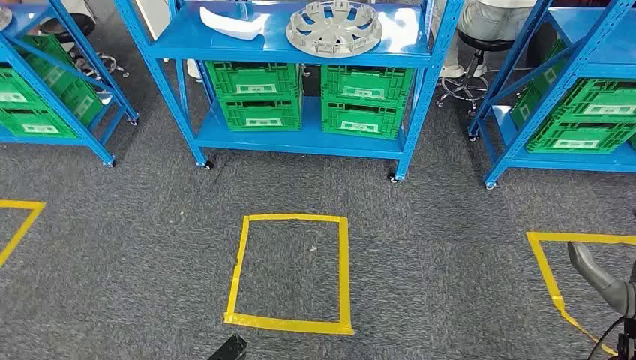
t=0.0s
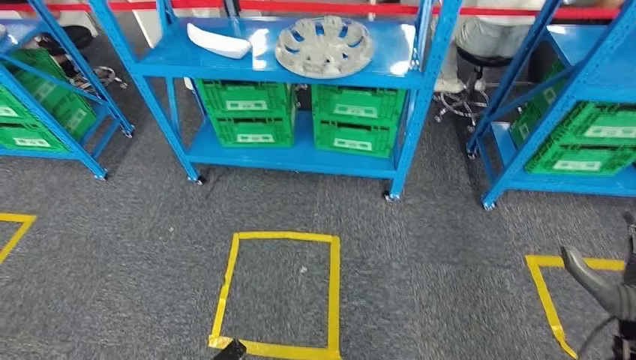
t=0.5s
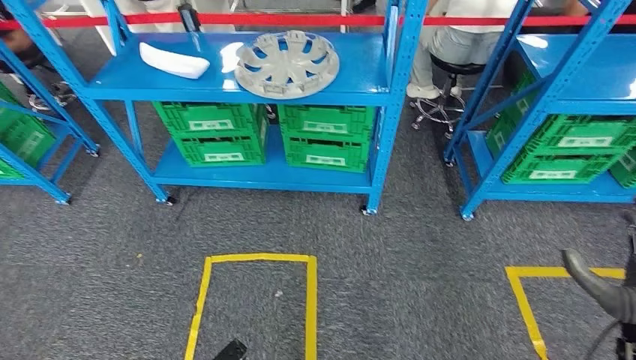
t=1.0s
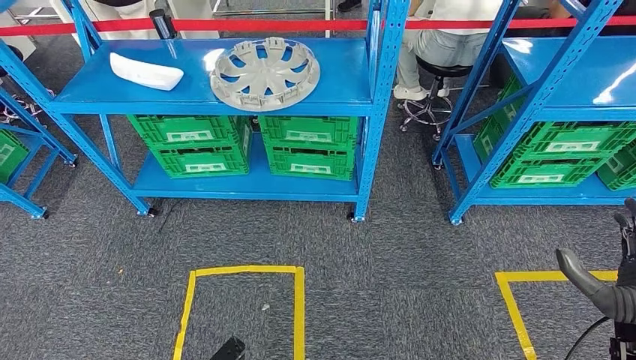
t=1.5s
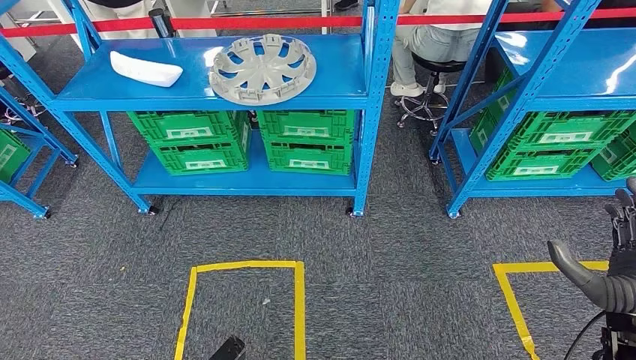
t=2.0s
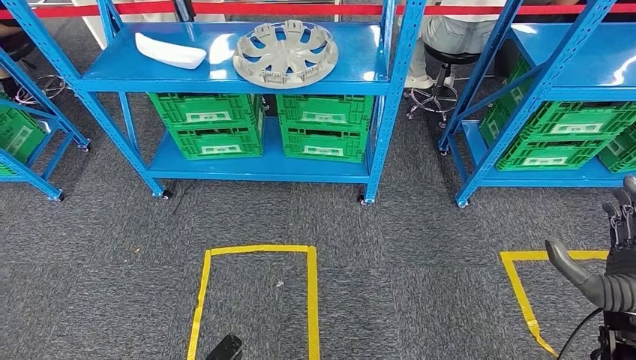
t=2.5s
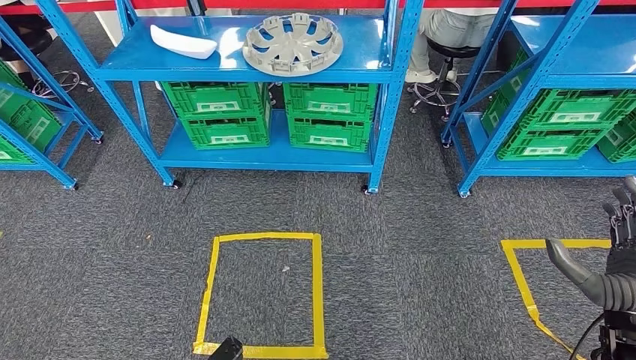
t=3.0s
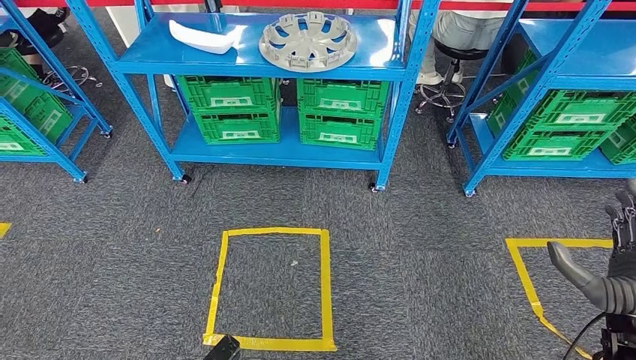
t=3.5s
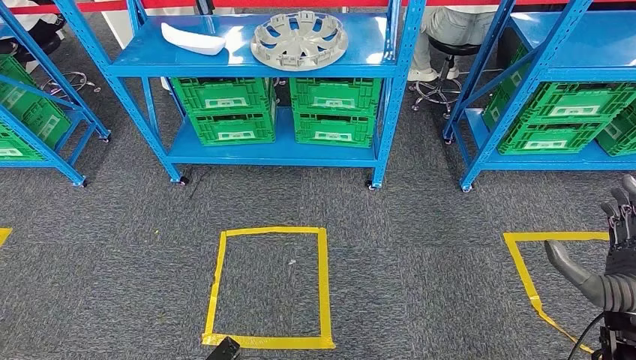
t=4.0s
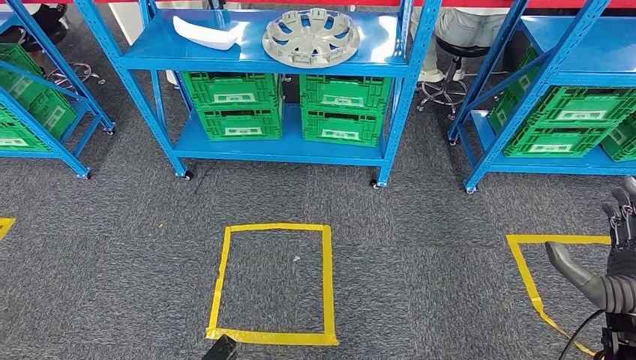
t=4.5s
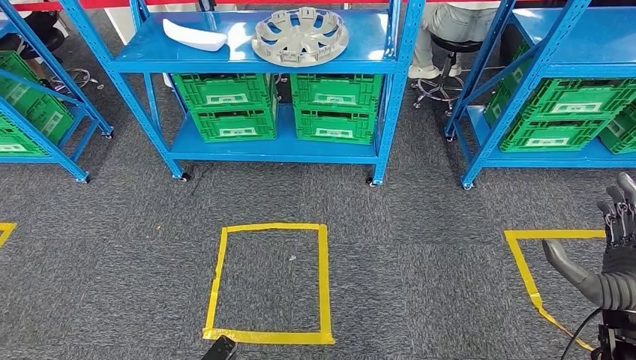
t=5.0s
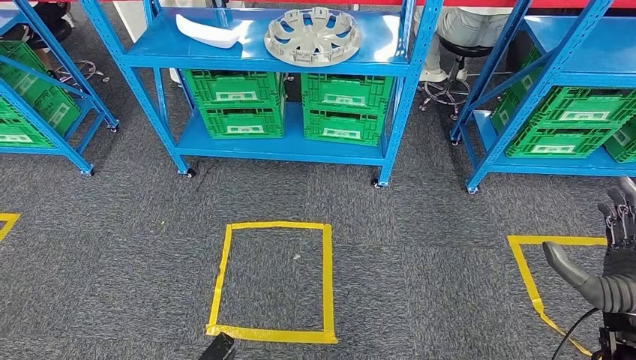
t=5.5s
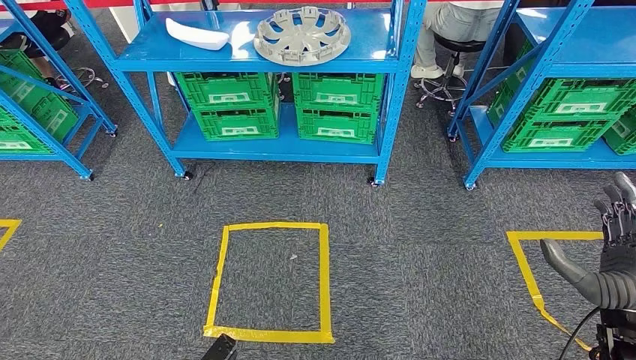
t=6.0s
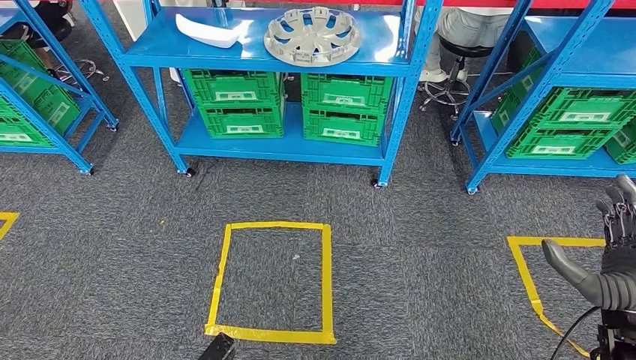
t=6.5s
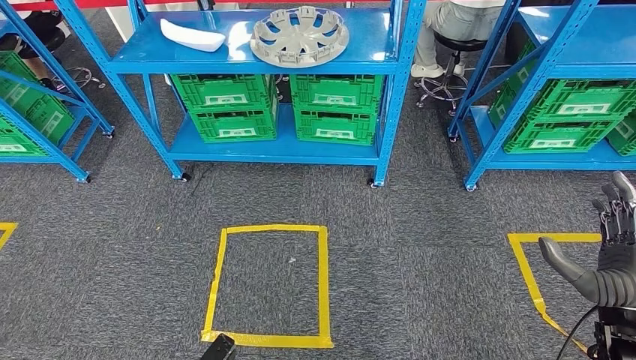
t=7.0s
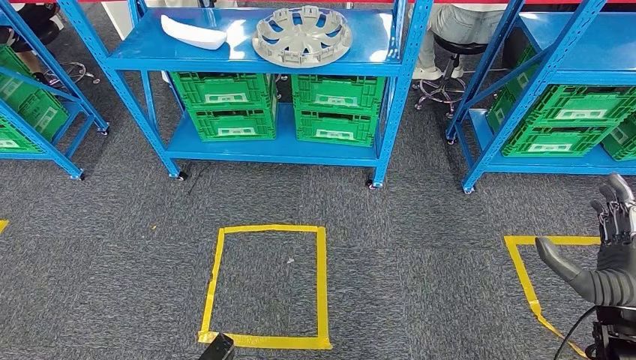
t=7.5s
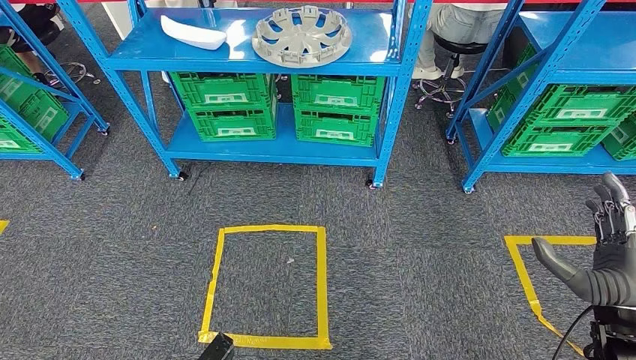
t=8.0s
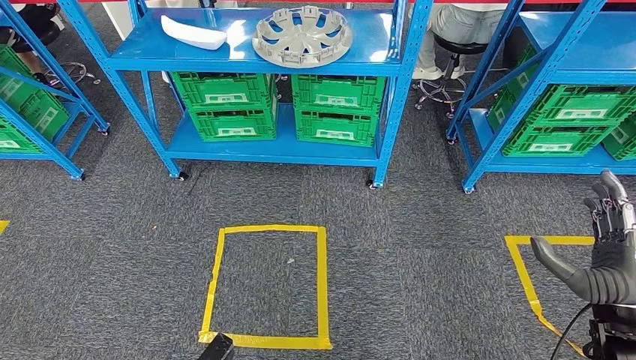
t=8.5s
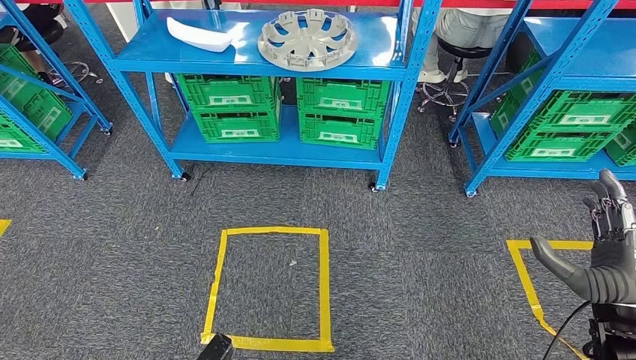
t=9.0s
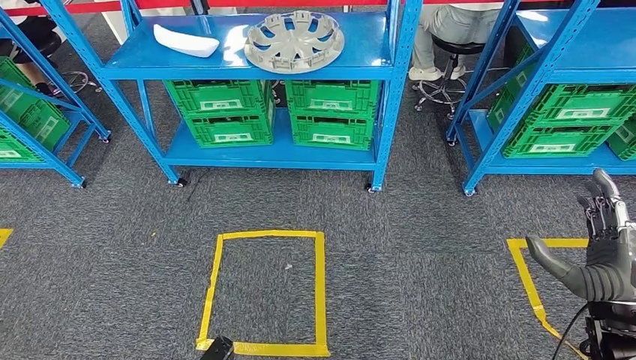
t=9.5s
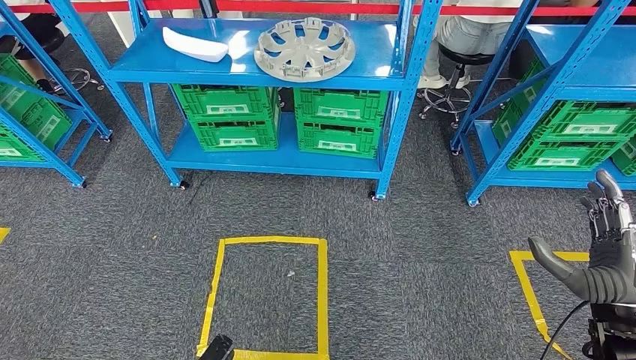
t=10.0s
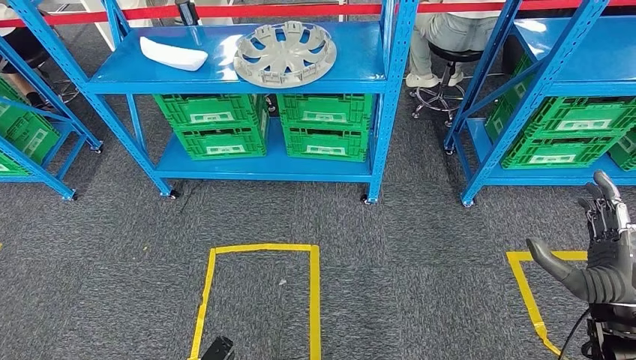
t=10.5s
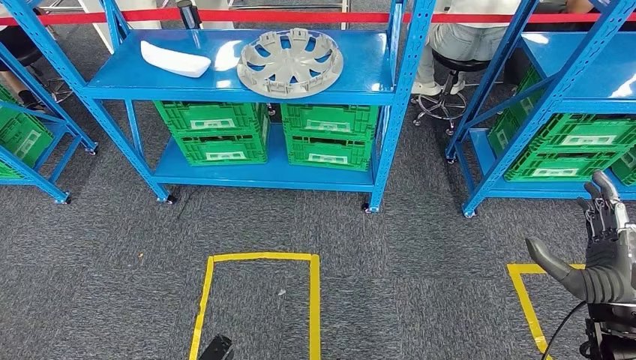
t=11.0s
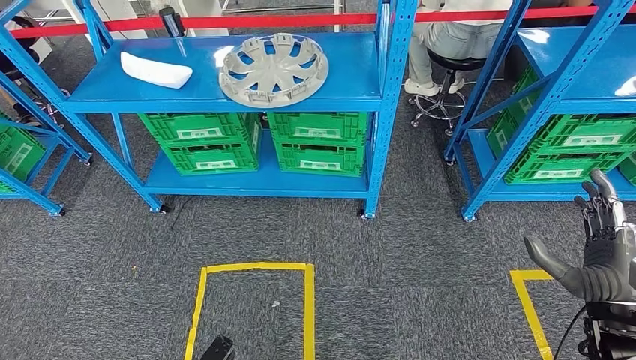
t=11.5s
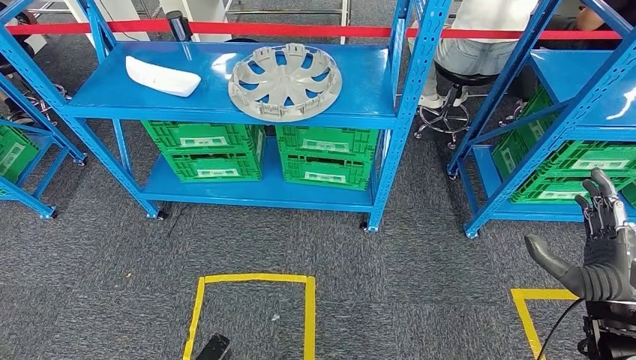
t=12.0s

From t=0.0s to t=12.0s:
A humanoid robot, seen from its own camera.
From t=6.0s to t=8.0s: Neither hand changes place.

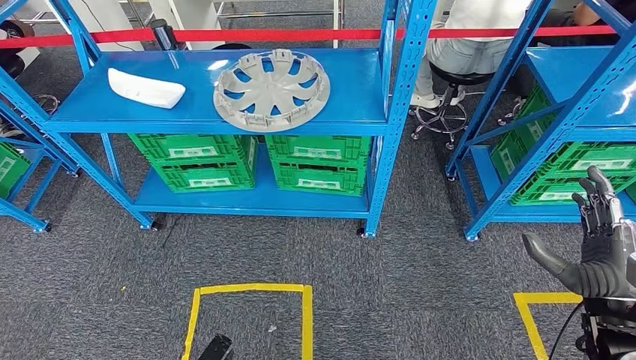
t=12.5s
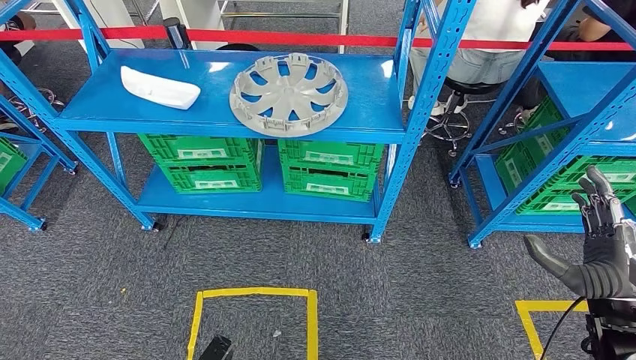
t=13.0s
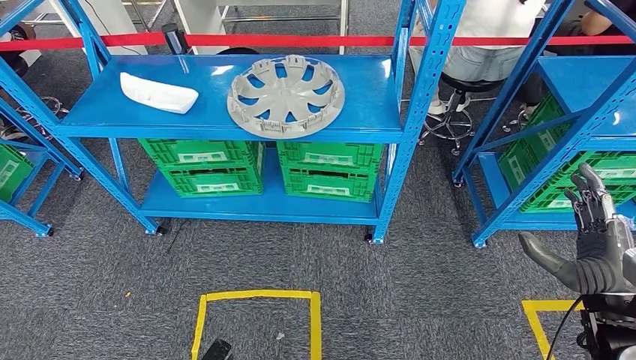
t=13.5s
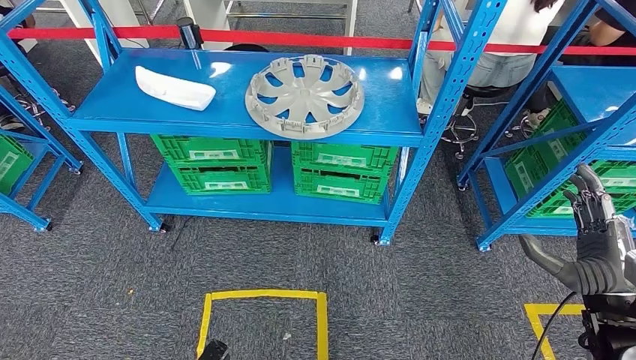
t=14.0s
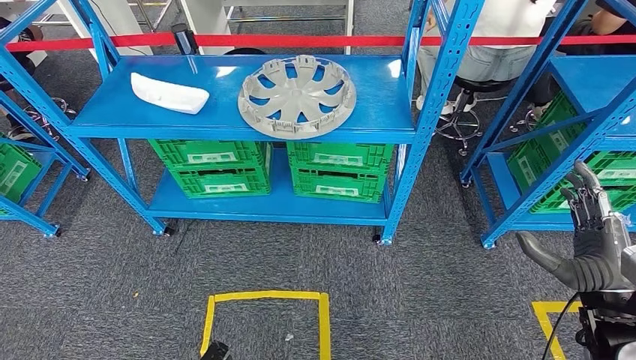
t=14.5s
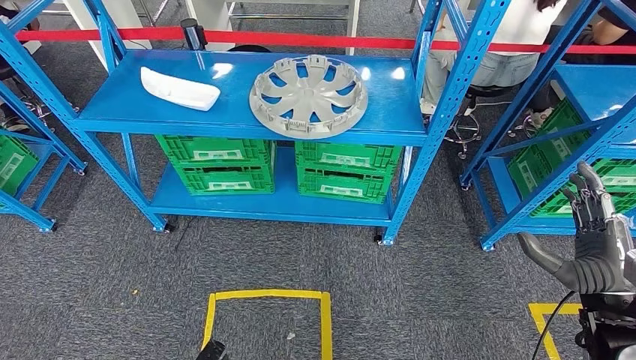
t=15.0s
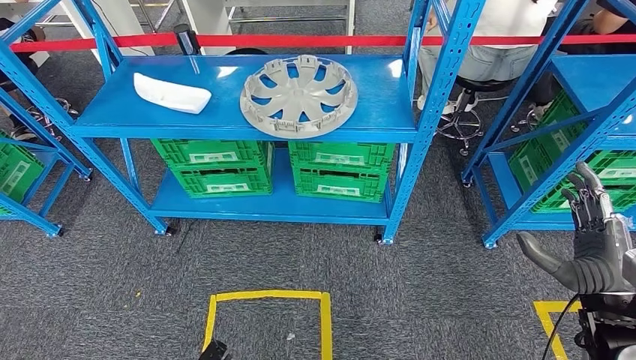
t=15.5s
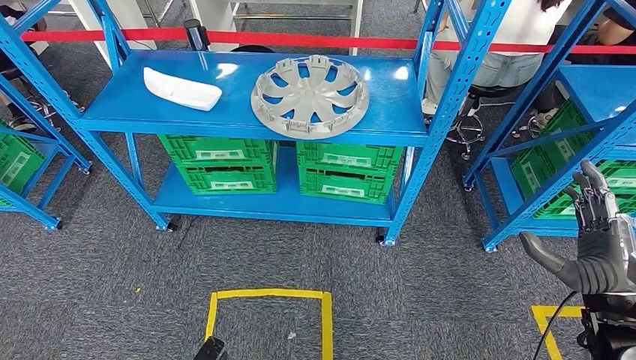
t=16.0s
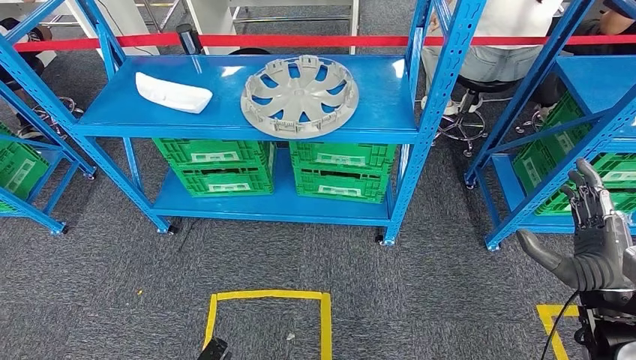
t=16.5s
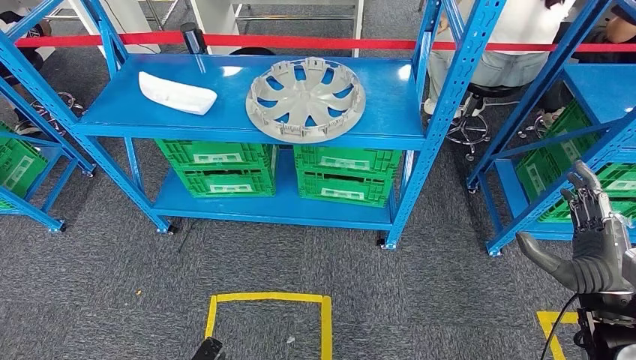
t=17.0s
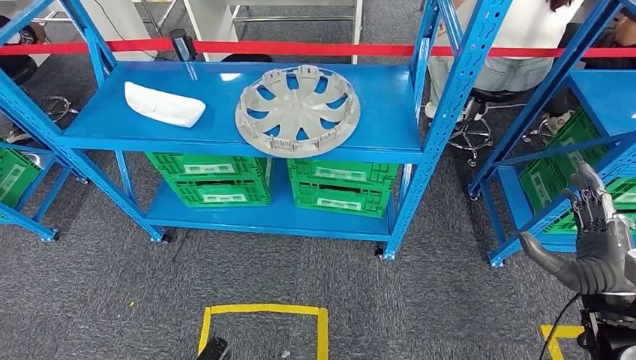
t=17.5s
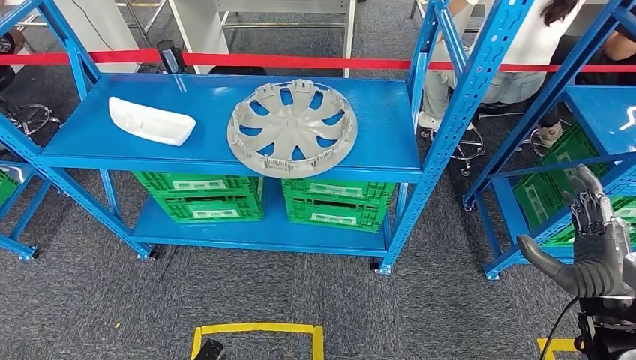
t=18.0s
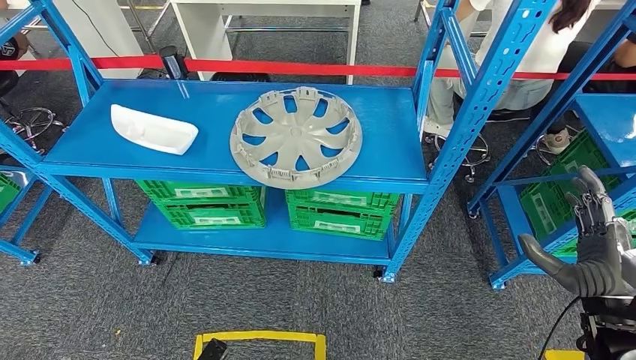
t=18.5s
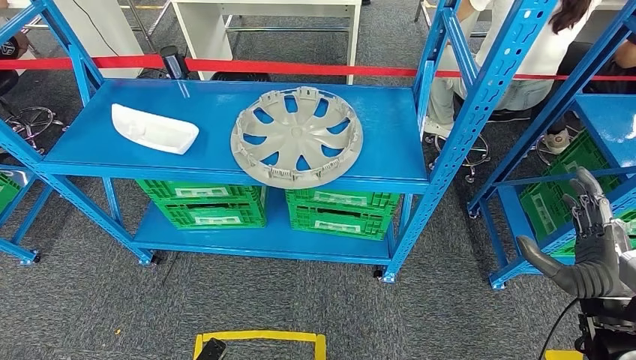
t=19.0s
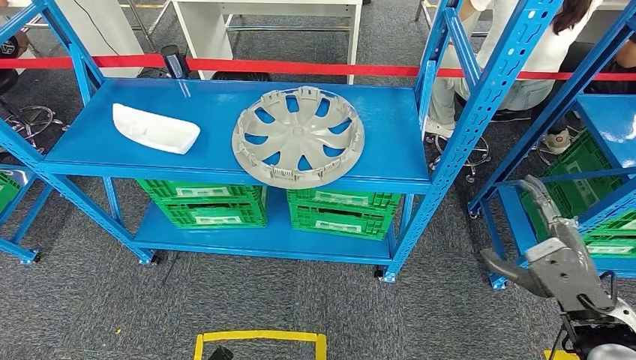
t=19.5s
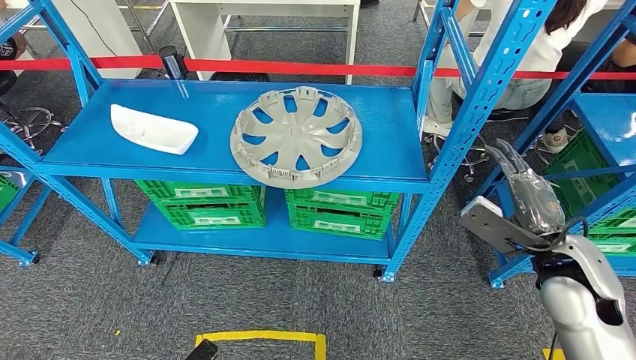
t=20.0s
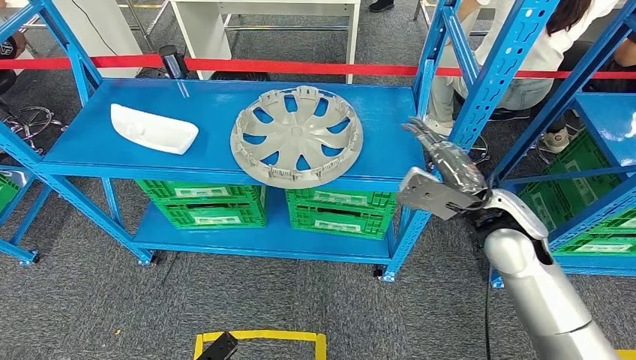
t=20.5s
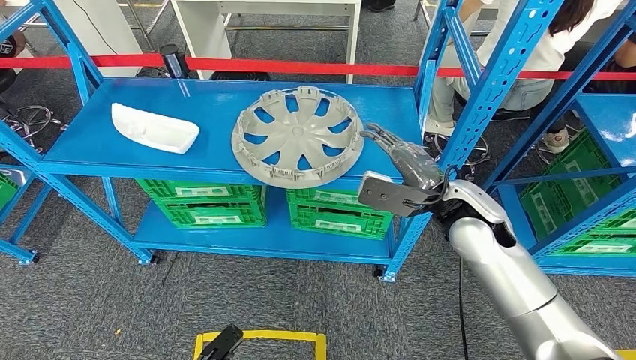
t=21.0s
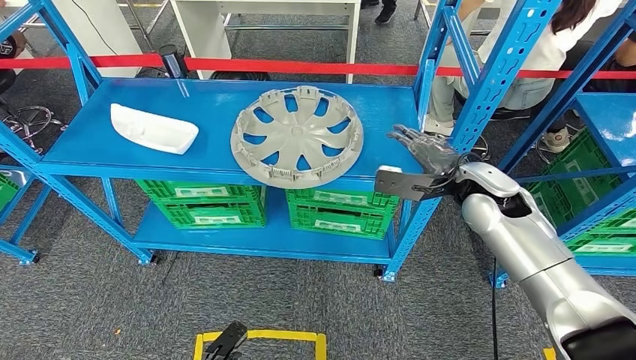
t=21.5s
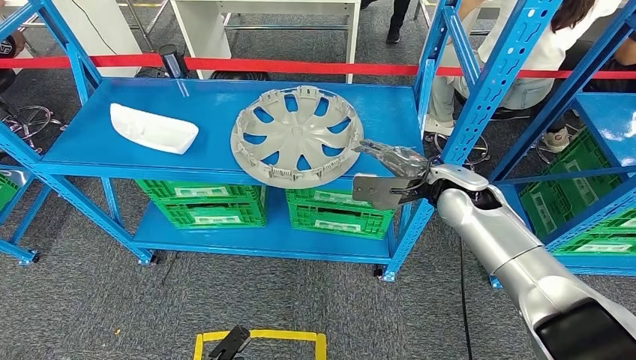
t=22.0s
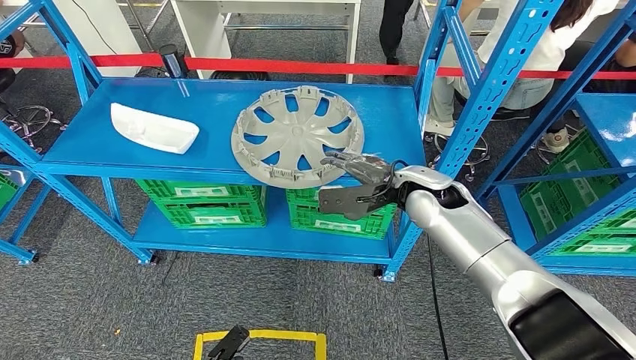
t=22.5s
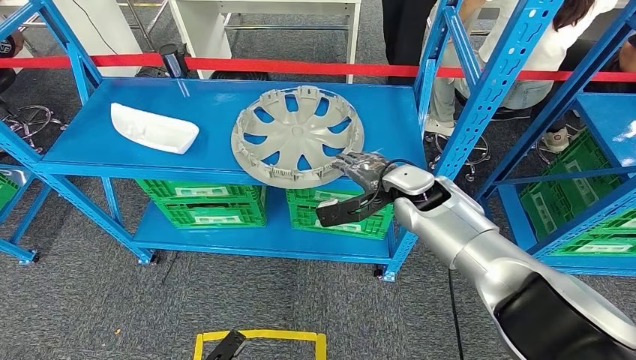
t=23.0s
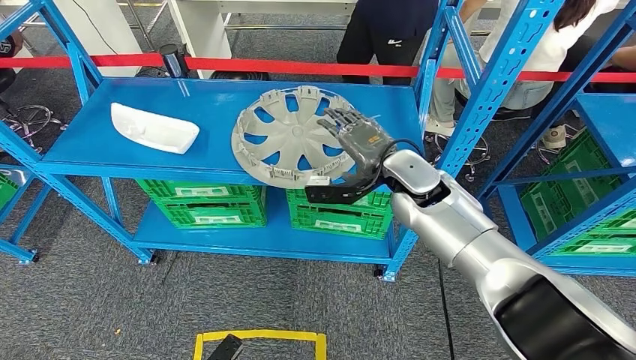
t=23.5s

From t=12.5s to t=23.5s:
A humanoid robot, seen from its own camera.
From t=20.0s to t=21.5s: The left hand heads to the right, covering about 5 cm. The right hand travels forward and to the left by some 15 cm.
From t=21.5s to t=23.5s: The right hand travels to the left by approximately 10 cm.
